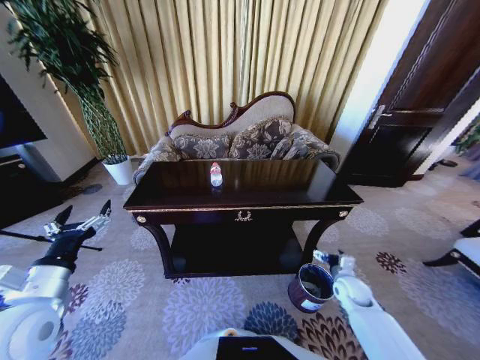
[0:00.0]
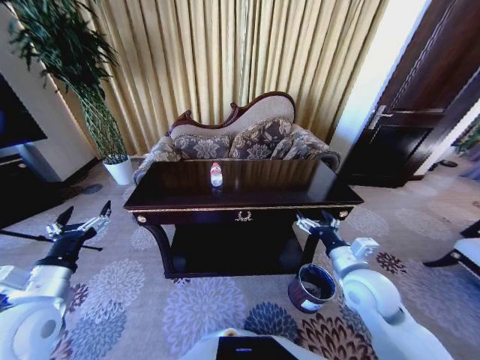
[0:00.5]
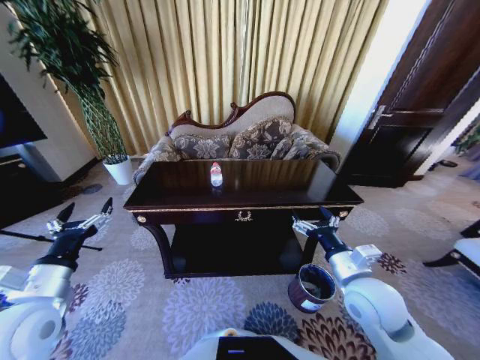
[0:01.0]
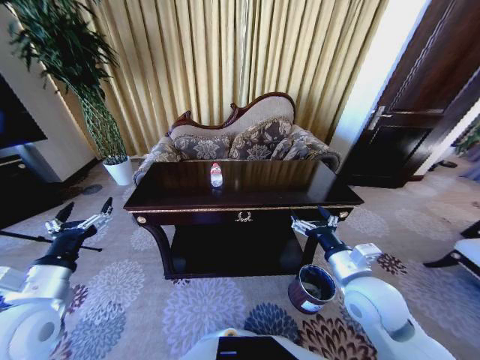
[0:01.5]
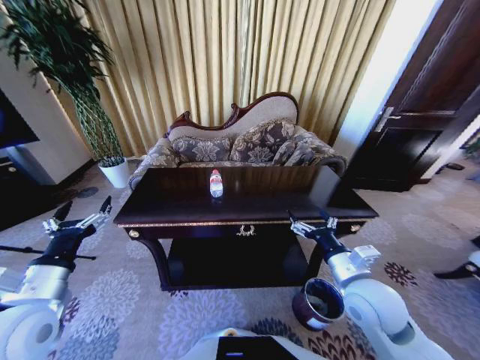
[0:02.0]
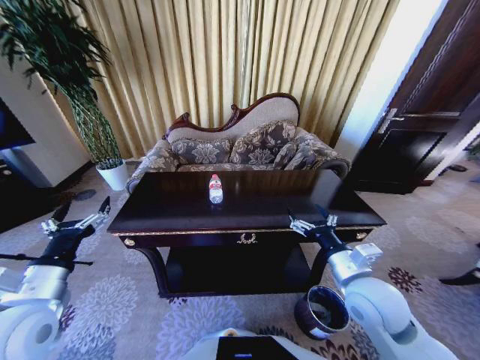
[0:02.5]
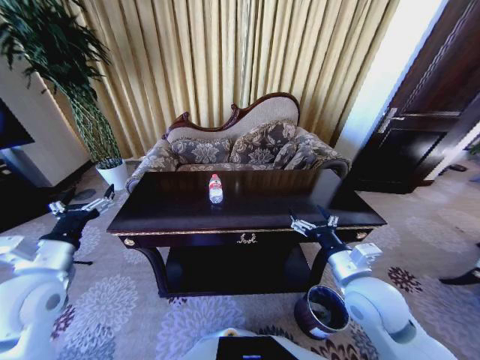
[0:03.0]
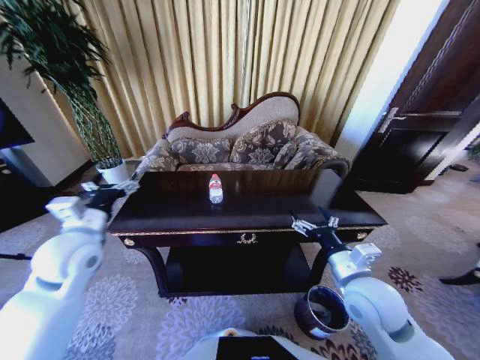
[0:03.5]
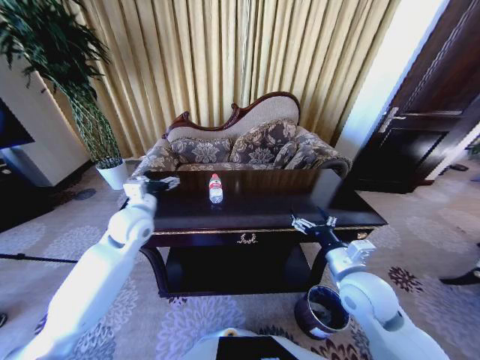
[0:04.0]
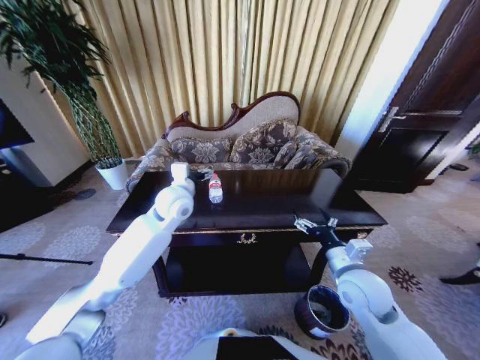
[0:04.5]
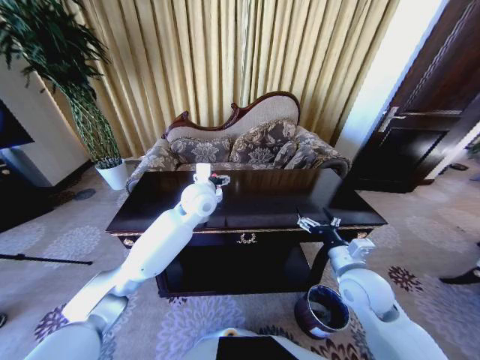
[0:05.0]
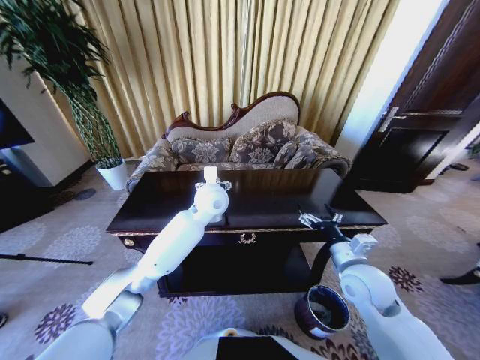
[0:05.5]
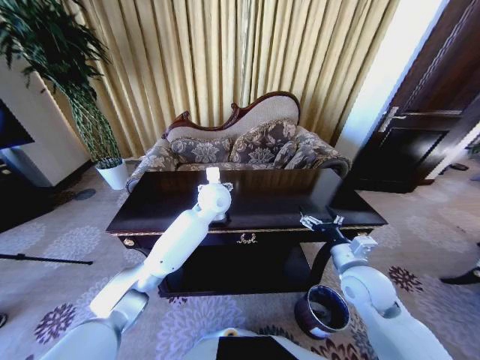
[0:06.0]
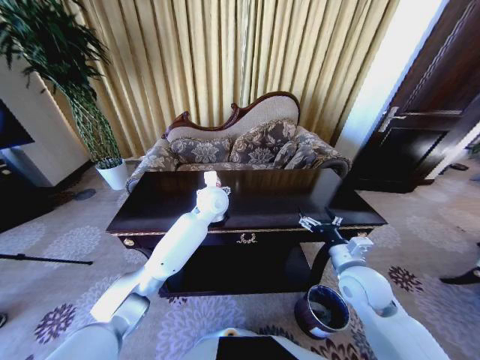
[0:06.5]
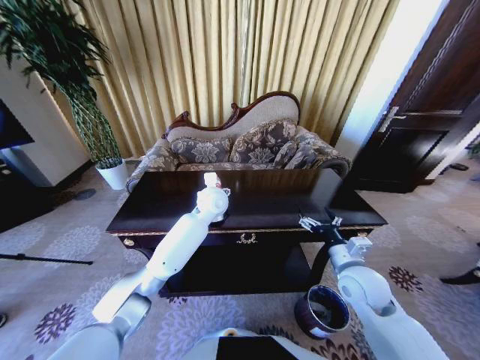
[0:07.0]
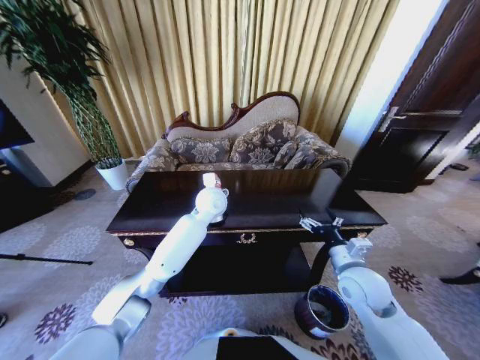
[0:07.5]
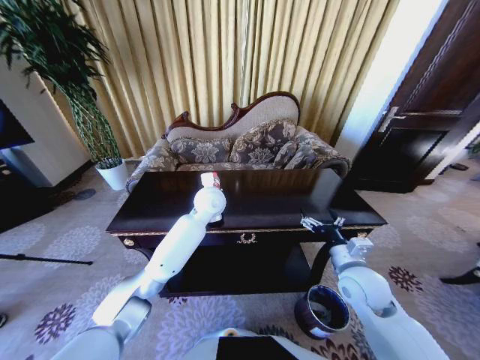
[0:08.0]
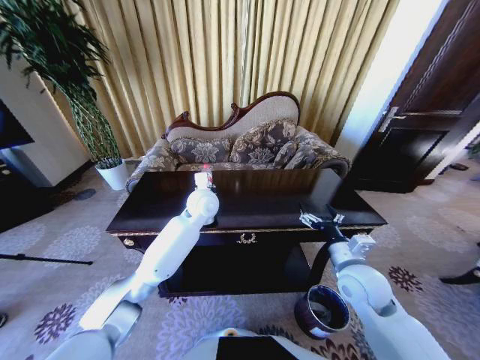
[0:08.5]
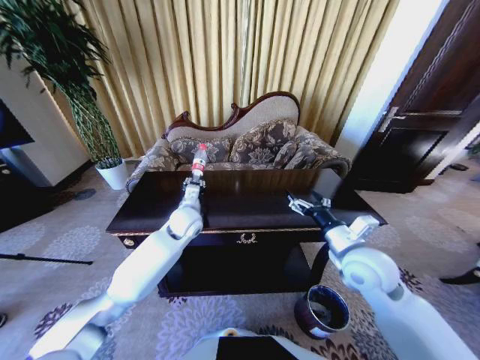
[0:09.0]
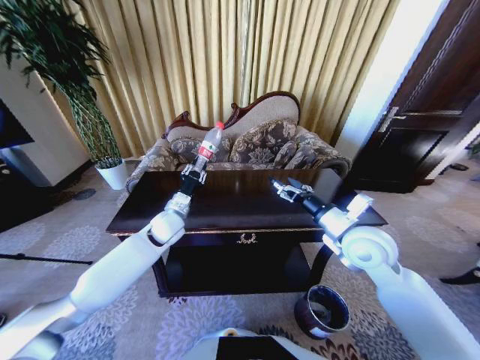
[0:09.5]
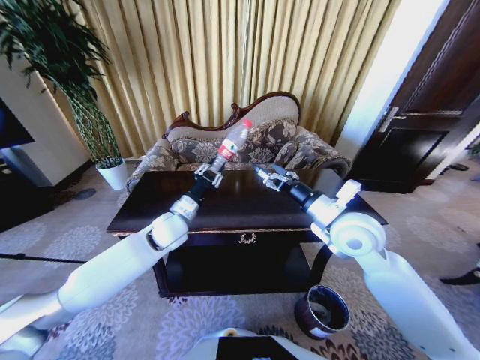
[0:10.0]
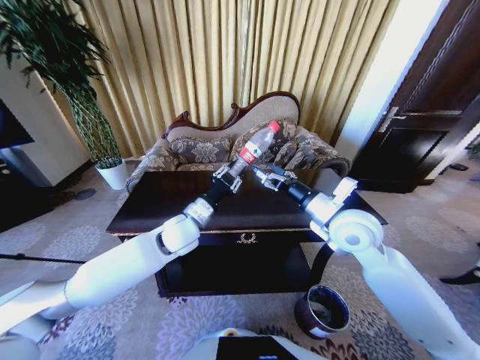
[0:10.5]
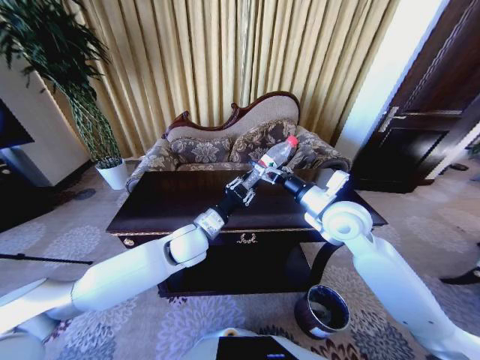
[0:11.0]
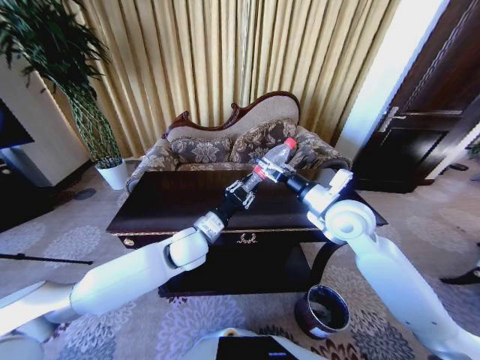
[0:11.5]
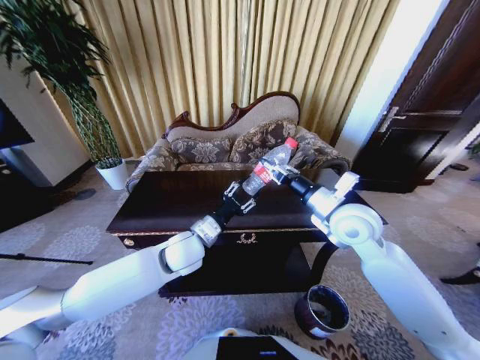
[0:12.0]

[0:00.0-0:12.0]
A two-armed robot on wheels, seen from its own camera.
Task of the whole recording: Move to the front of the table and place the trash on the table into the trash bin.
0:00.0 to 0:02.0: The right gripper is displaced upward and to the left by roughly 25 cm.
0:02.0 to 0:04.0: The left gripper heads forward and to the right, covering about 25 cm.
0:04.0 to 0:06.0: The left gripper travels to the right by approximately 20 cm.
0:06.0 to 0:08.0: The left gripper closes.
0:08.0 to 0:10.0: The right gripper is displaced upward and forward by some 15 cm. The left gripper travels to the left and backward by some 15 cm.
0:10.0 to 0:12.0: The left gripper shifts approximately 10 cm backward and to the right; the right gripper closes up.

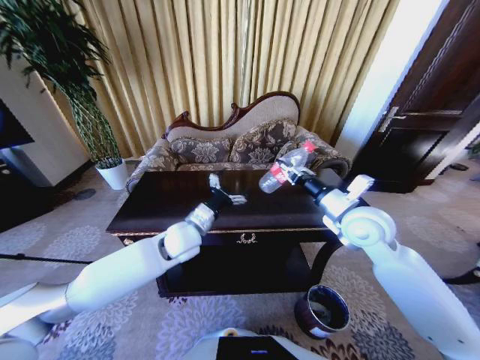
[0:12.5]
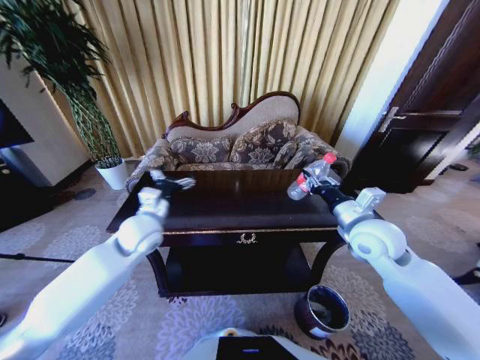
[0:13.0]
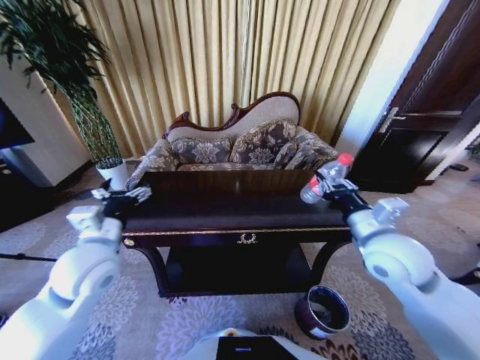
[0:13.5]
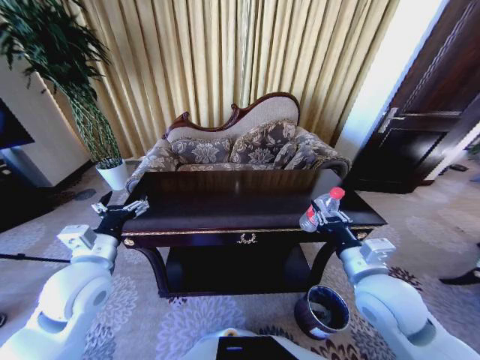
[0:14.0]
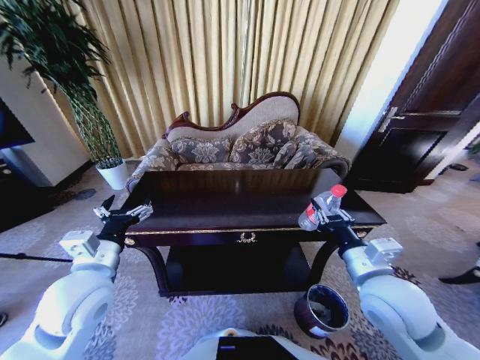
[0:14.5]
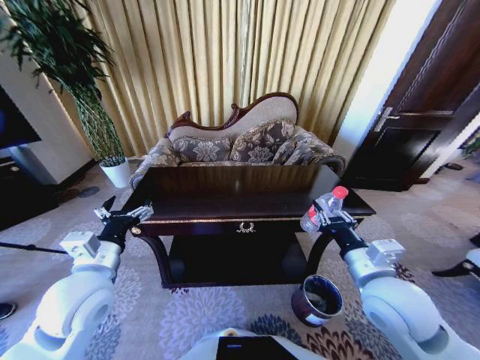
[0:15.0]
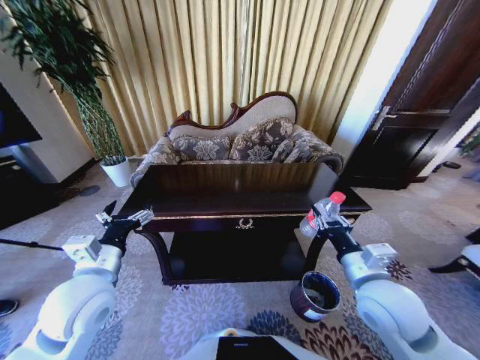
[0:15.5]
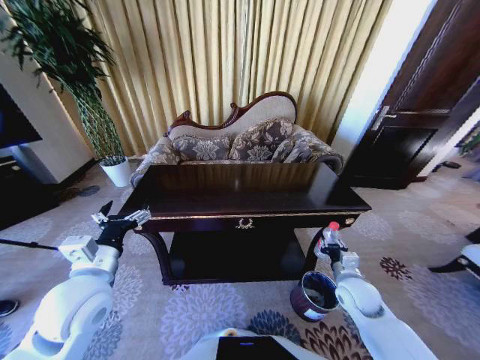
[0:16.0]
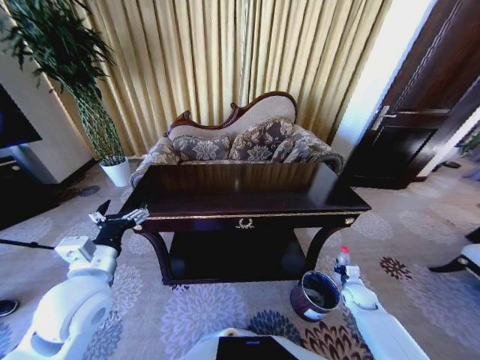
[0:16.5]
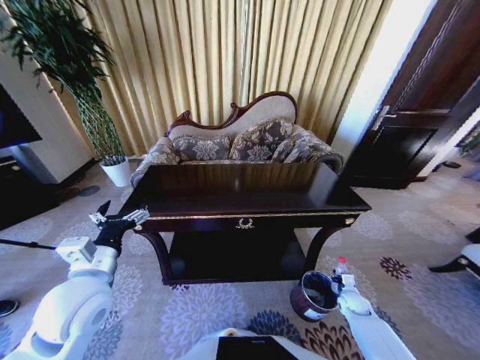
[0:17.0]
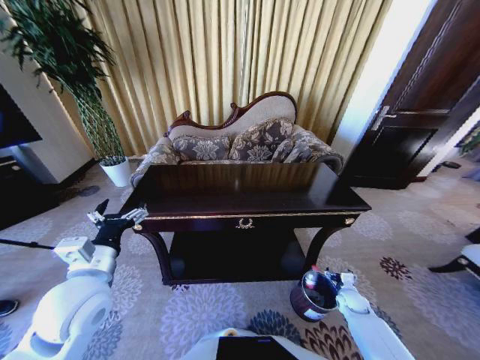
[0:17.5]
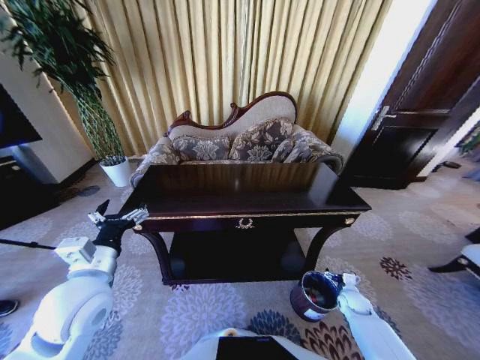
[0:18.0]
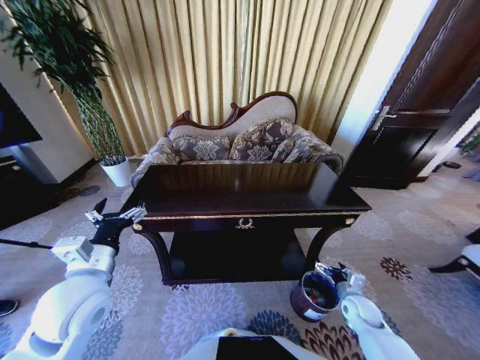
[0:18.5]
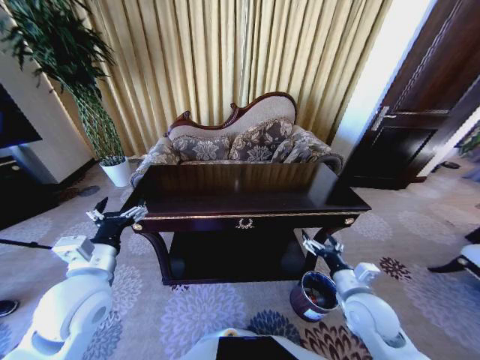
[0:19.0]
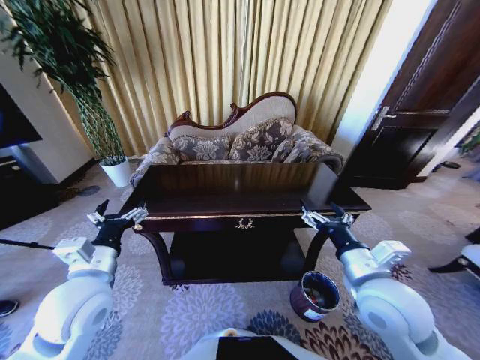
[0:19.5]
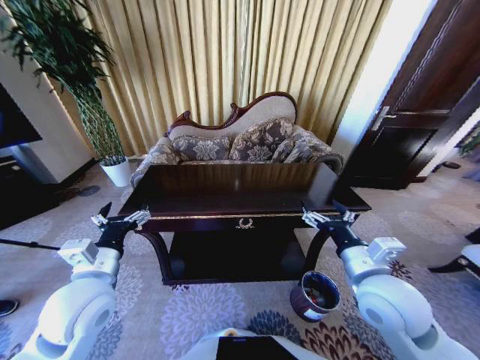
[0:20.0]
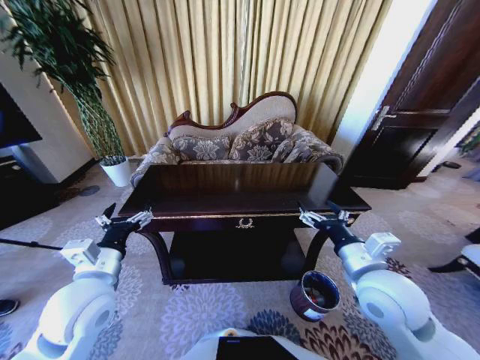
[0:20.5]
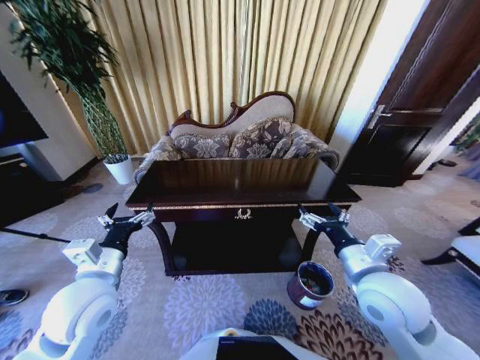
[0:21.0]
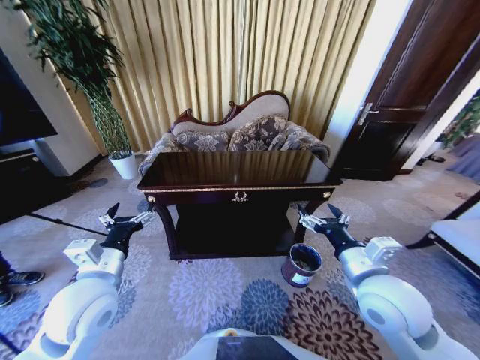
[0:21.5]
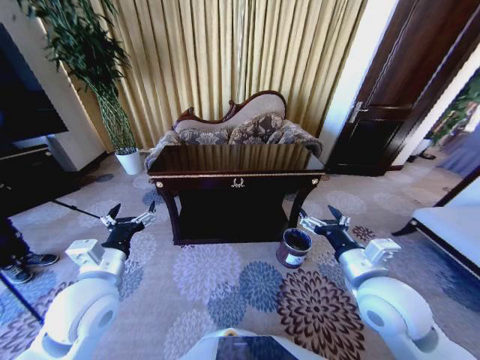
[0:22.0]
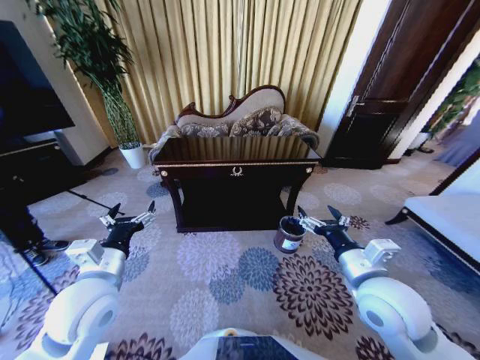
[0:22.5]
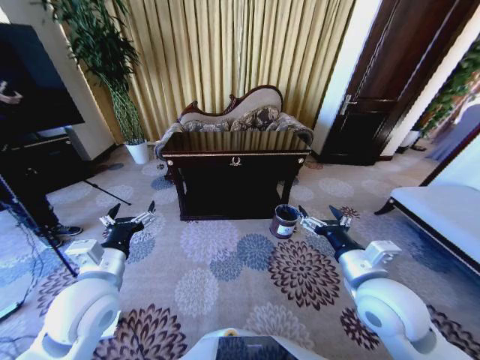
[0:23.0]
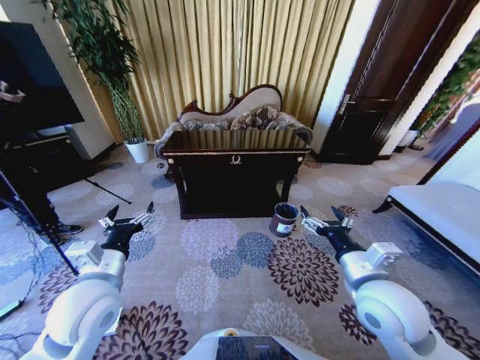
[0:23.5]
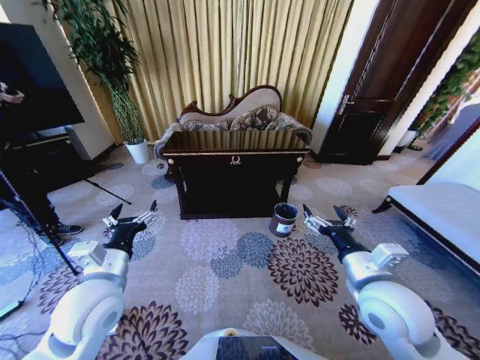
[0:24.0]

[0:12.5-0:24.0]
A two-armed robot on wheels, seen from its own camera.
Task of the whole recording: Move to the front of the table and place the trash on the table into the trash bin.
0:12.5 to 0:14.5: The right gripper is displaced backward by some 15 cm, while the left gripper is displaced to the left and backward by roughly 20 cm.
0:14.5 to 0:16.5: The right gripper shifts approximately 35 cm downward and to the right.
0:16.5 to 0:18.5: The right gripper shifts by about 10 cm, and opens up.
0:18.5 to 0:20.0: The right gripper moves upward and to the left, some 30 cm.

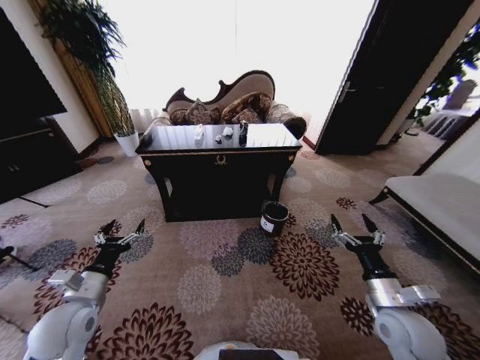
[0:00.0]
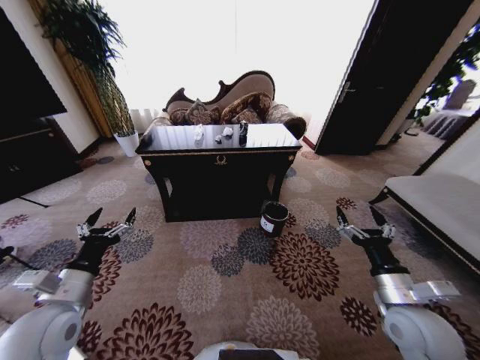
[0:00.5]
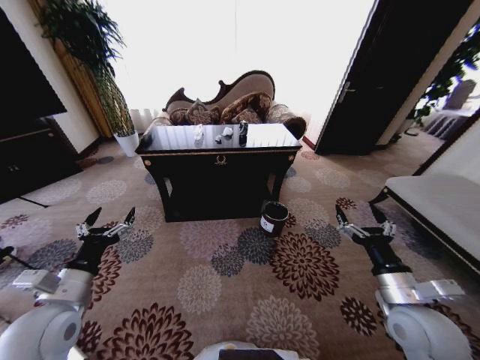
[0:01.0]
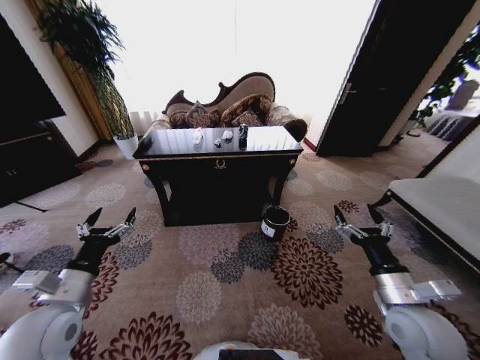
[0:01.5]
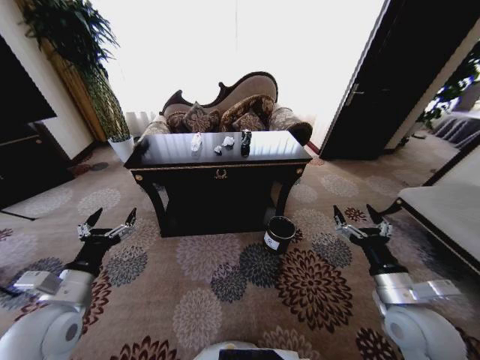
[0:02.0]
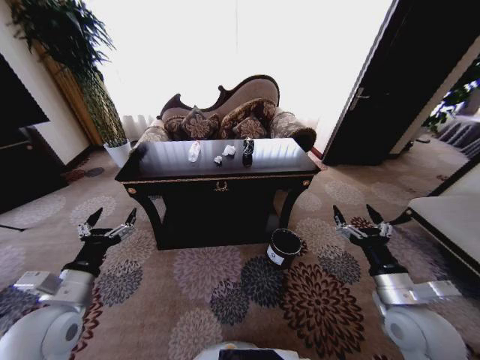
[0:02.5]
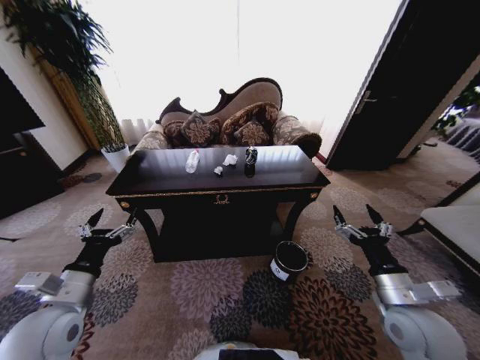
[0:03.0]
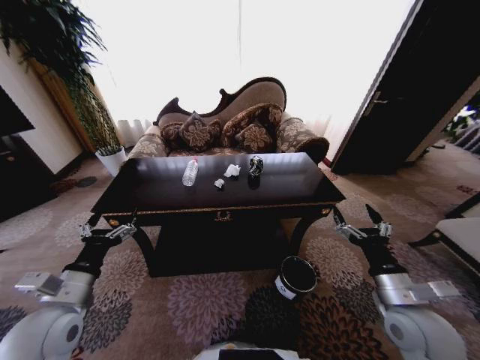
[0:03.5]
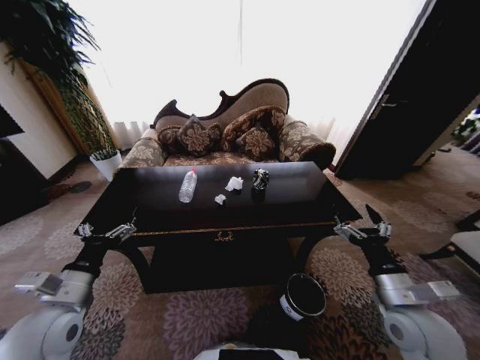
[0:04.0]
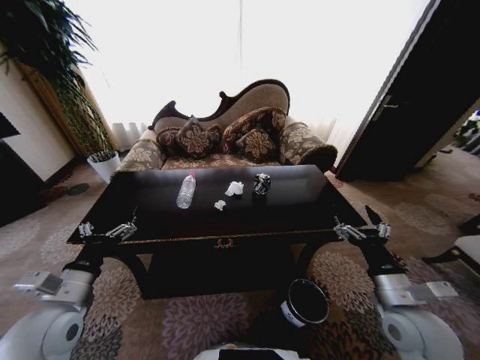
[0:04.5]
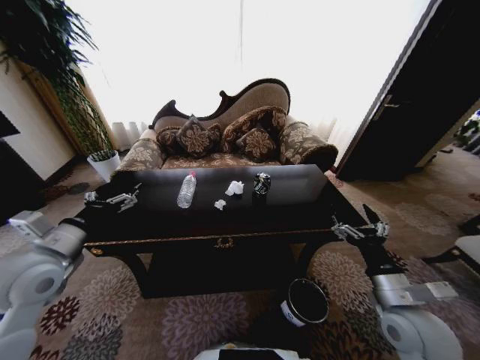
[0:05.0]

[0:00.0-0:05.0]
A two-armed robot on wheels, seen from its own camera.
Task of the whole recording: Move to the front of the table and place the trash on the table into the trash bin.
0:02.5 to 0:05.0: The left gripper travels upward and forward by roughly 10 cm.
